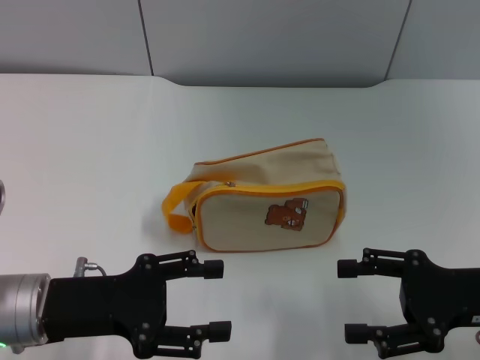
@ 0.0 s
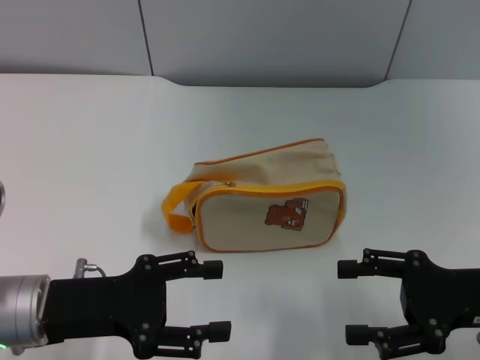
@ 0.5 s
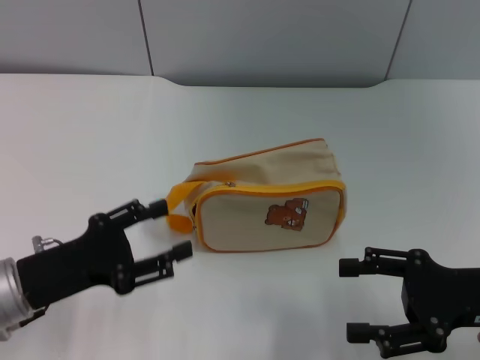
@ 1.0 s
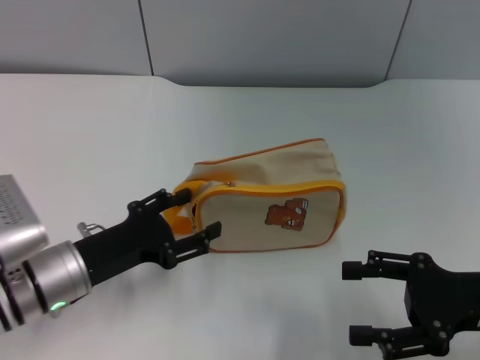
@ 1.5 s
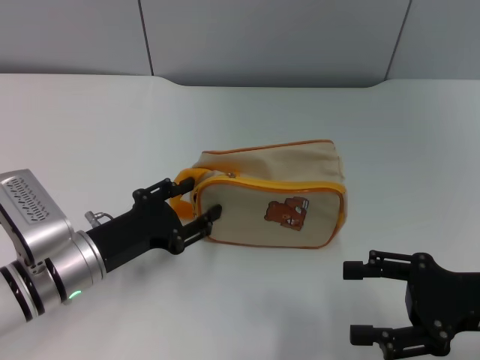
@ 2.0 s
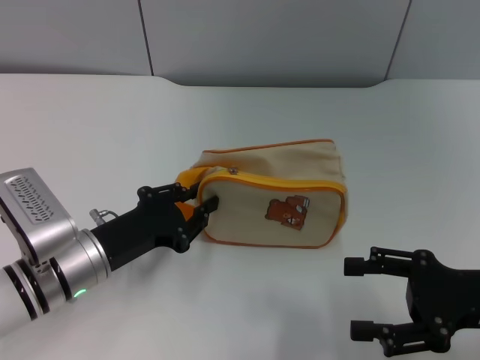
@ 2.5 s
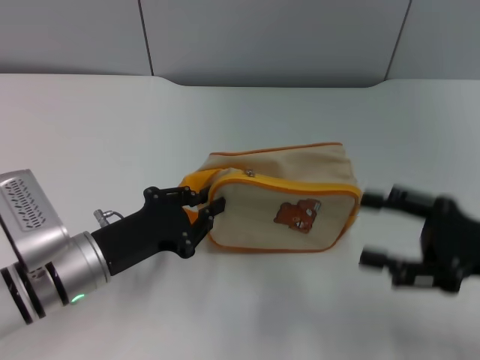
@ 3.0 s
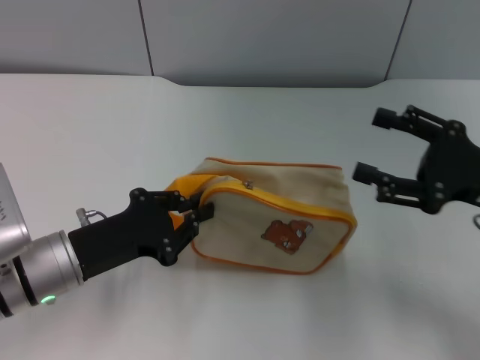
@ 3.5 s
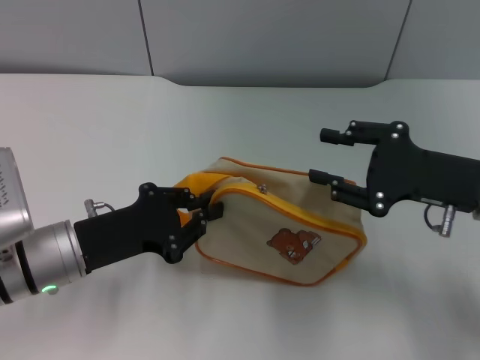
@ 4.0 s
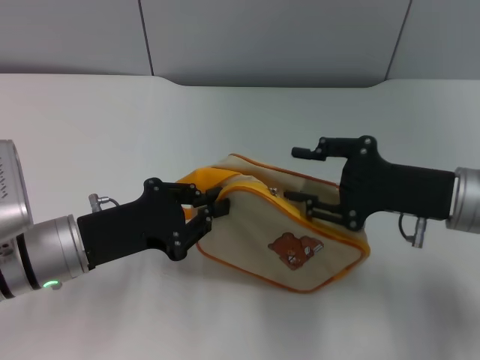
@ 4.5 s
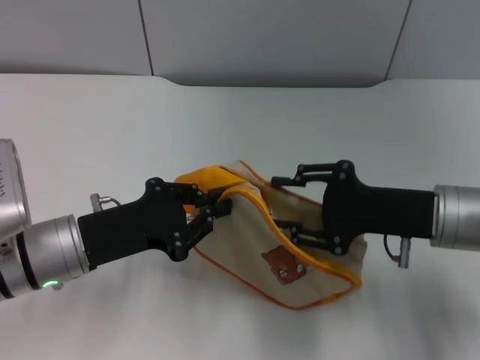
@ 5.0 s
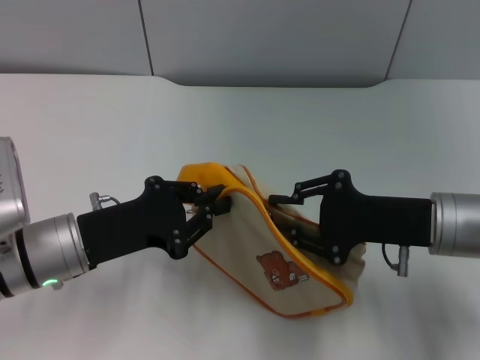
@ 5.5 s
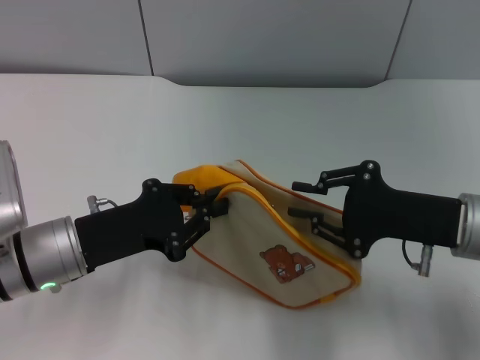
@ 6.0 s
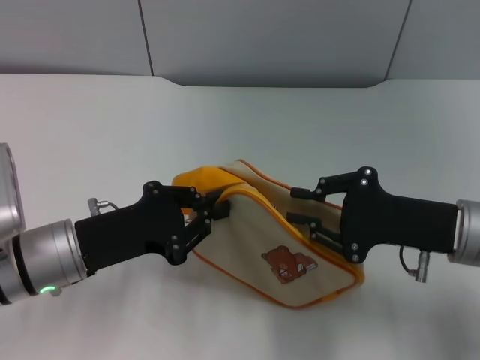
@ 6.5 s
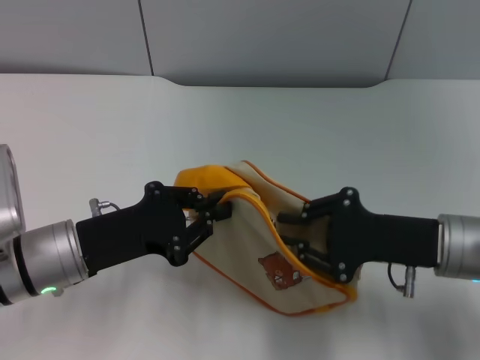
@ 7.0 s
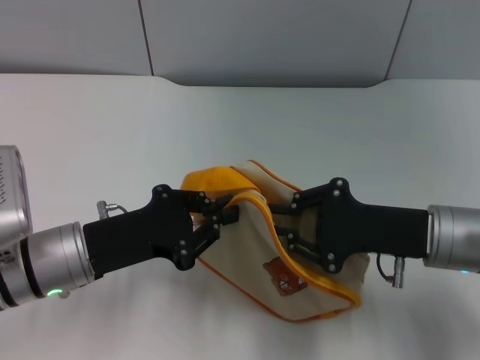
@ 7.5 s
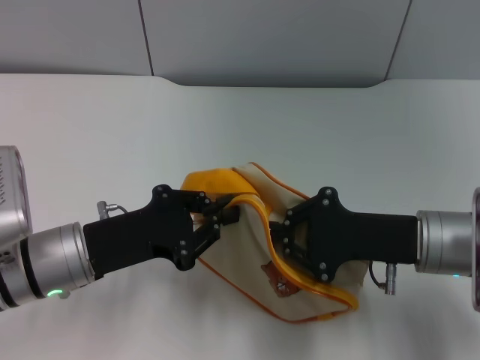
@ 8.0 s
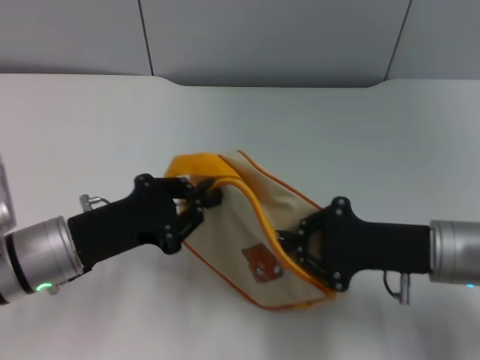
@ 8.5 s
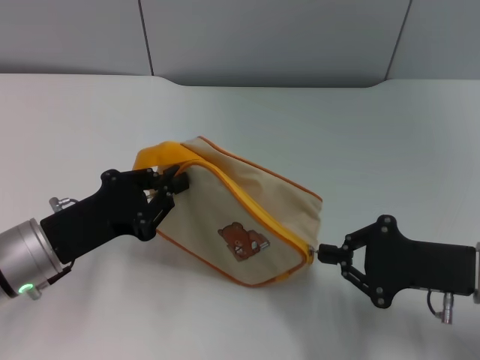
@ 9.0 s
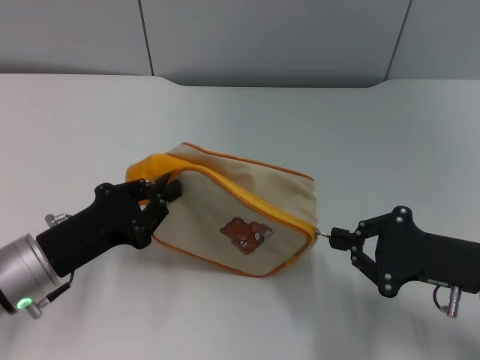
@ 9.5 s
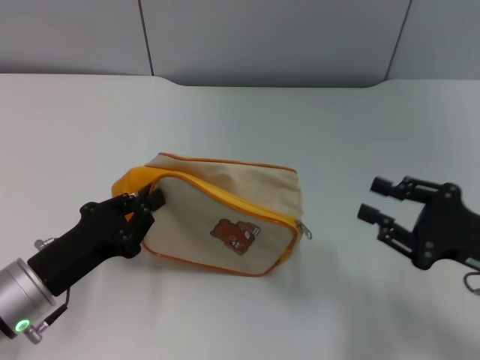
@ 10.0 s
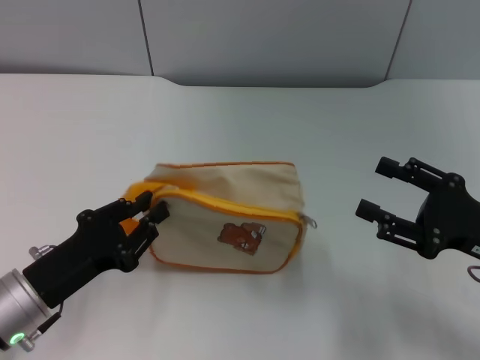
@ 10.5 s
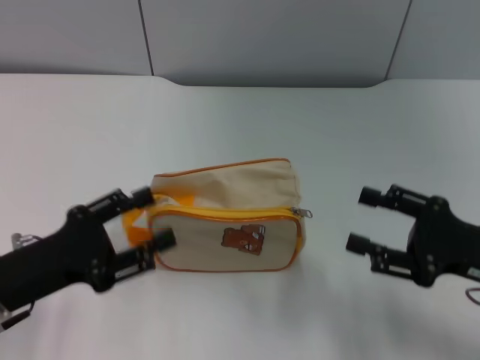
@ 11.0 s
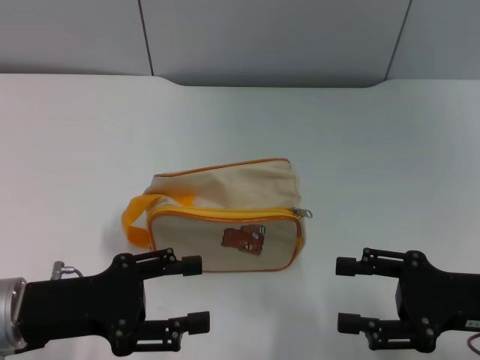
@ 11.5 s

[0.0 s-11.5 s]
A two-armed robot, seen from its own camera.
Step, 0.0 to 3.5 s: Pick up the bag with left gripper.
Step, 4.0 to 9.5 s: Unzip the zipper of bag with right gripper.
Step, 10.0 to 11.0 s: Place the bag on the table with left gripper.
0.0 to 2.0 s: The left gripper is displaced downward by some 5 cm.
2.0 to 4.0 s: The left gripper closes. Meanwhile the right gripper travels forward by roughly 5 cm.
4.0 to 6.0 s: The right gripper closes its fingers.
6.0 to 7.5 s: The grippers make only small movements.
7.5 to 9.5 s: The right gripper moves to the right, approximately 5 cm.
9.5 to 11.5 s: The left gripper opens, while the right gripper opens its fingers.
